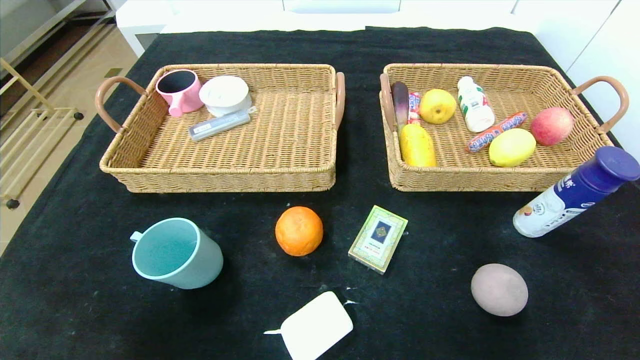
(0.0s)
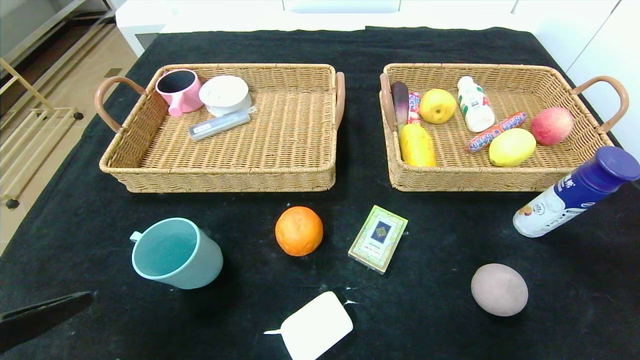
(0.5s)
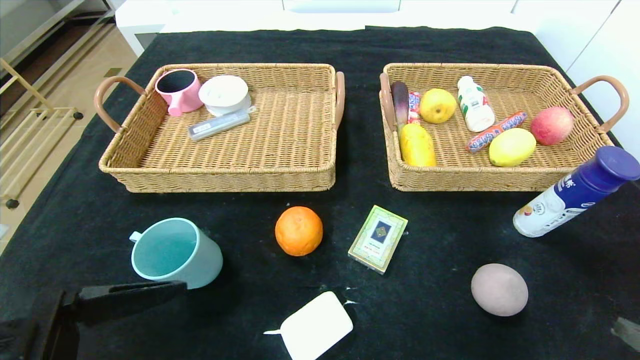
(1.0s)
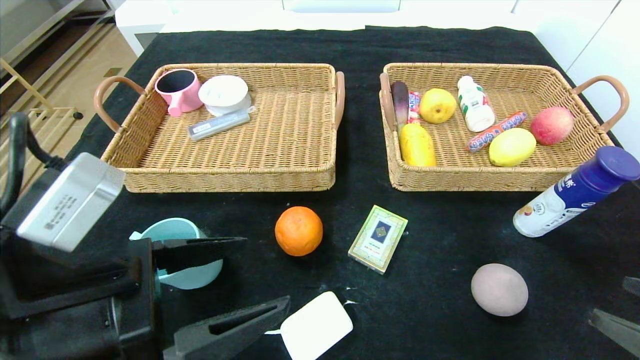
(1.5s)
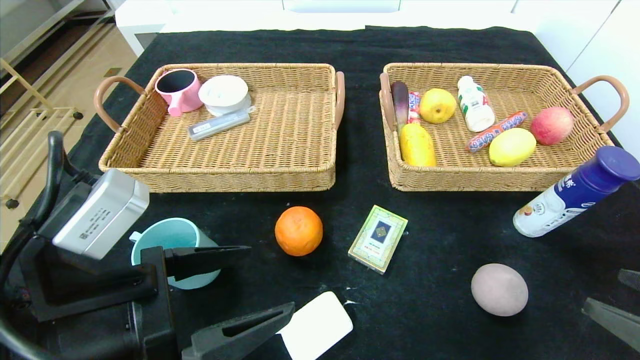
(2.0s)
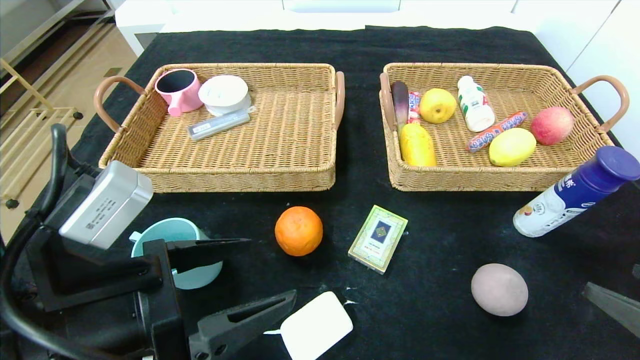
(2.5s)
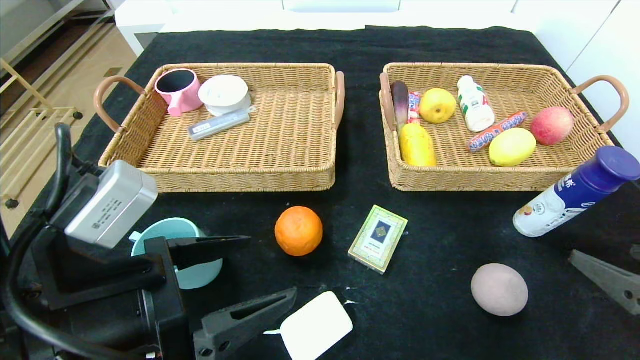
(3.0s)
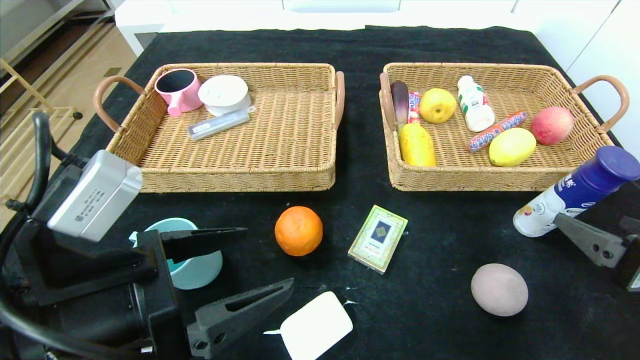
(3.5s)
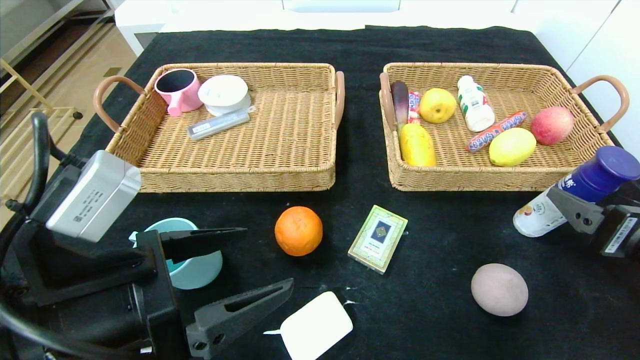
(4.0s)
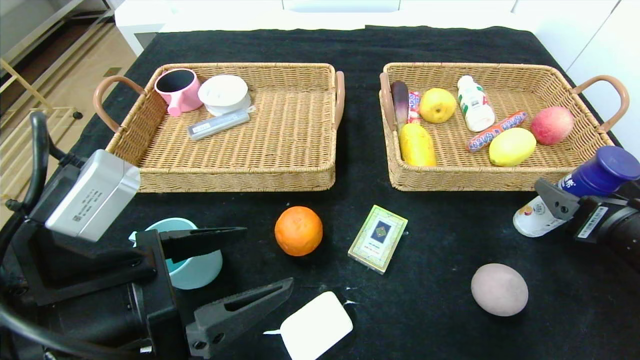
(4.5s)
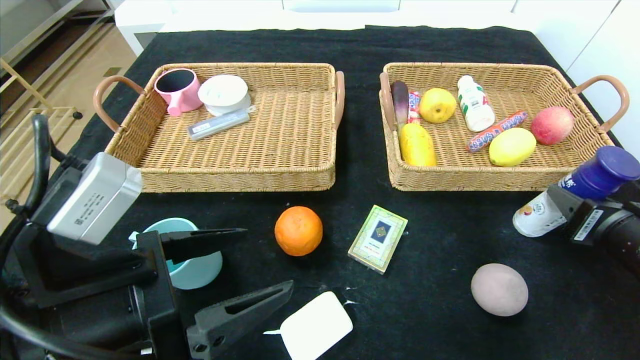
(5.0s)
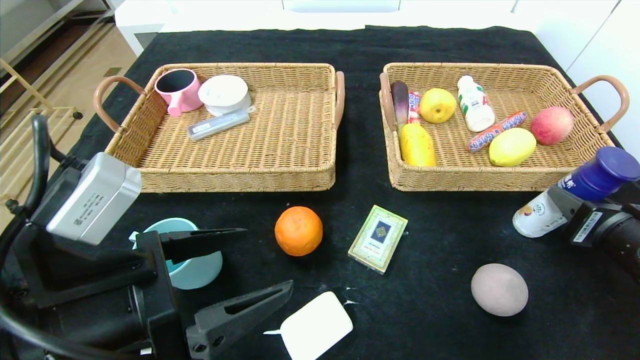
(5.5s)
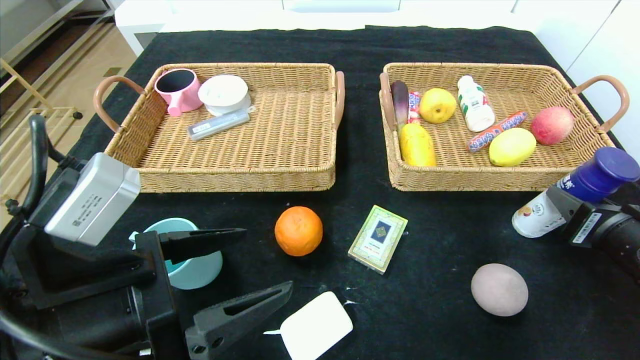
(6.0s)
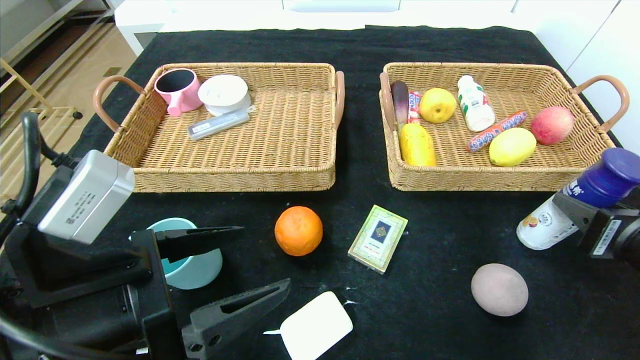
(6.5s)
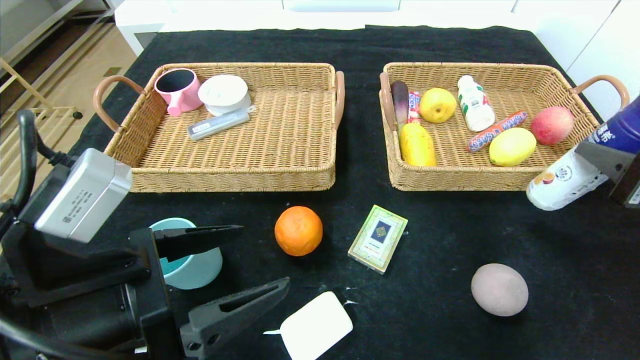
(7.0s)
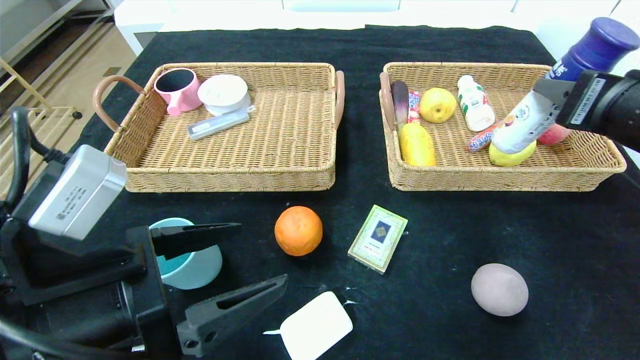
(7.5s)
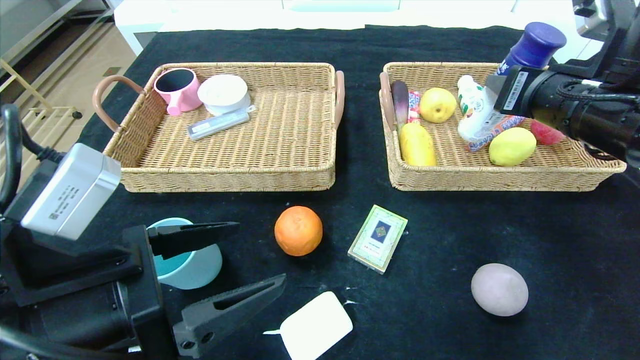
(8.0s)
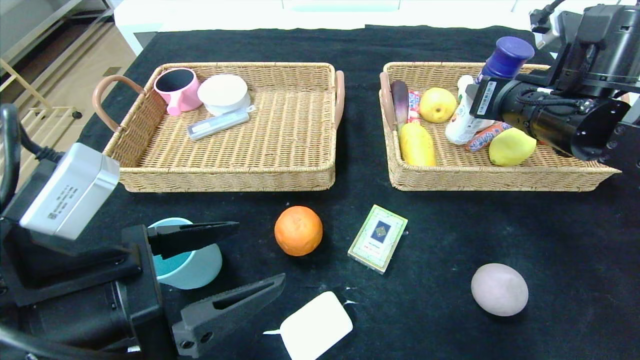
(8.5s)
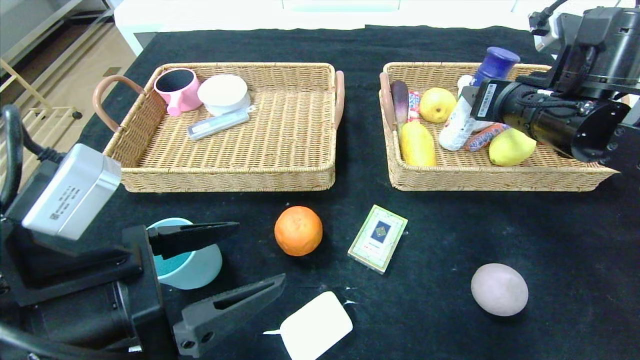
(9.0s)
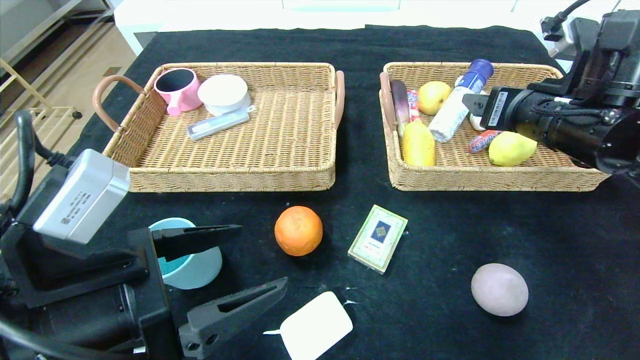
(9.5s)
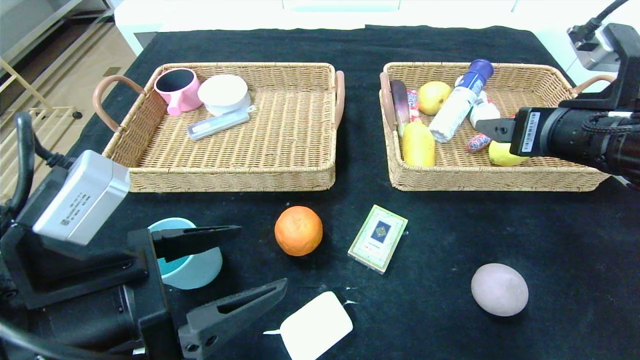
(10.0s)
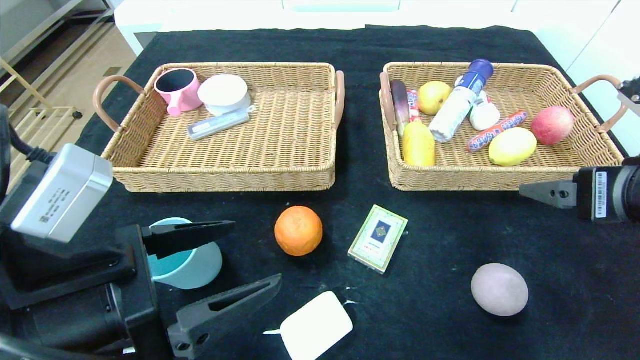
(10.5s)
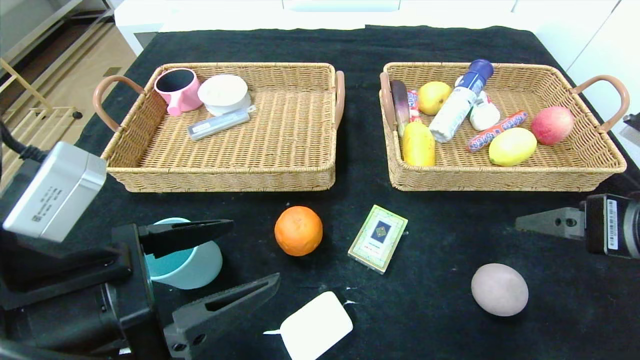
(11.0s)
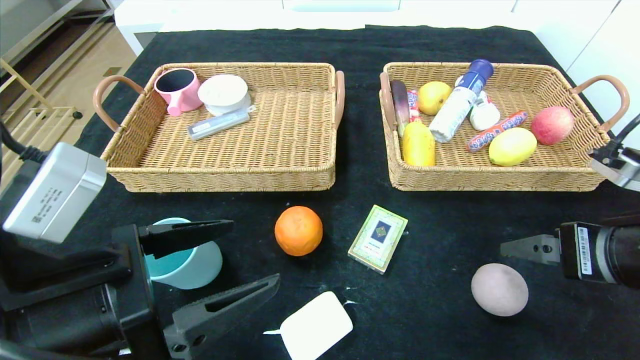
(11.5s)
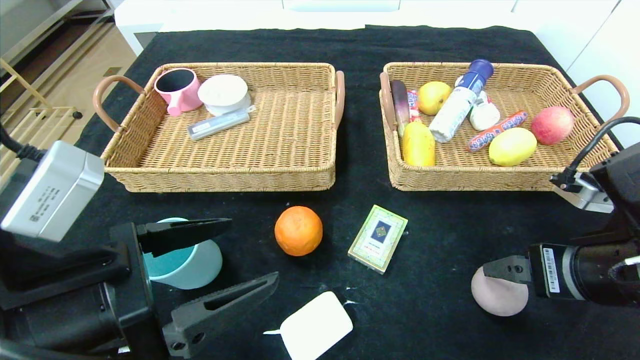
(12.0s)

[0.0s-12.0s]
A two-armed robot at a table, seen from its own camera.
Step, 0.0s to 9.0s: Grasp the yogurt and put it in the right basket.
0.0s to 2.0s: The right gripper heads forward, covering approximately 10 cm. The left gripper heads forward and to the right, covering roughly 15 cm.
2.0s to 4.0s: The right gripper heads forward, covering roughly 10 cm.
4.0s to 6.0s: The right gripper closes up.
6.0s to 8.0s: The right gripper moves upward, forward and to the left, approximately 15 cm.
8.0s to 10.0s: The right gripper opens.
10.0s to 12.0s: The right gripper heads downward and backward, covering approximately 10 cm.

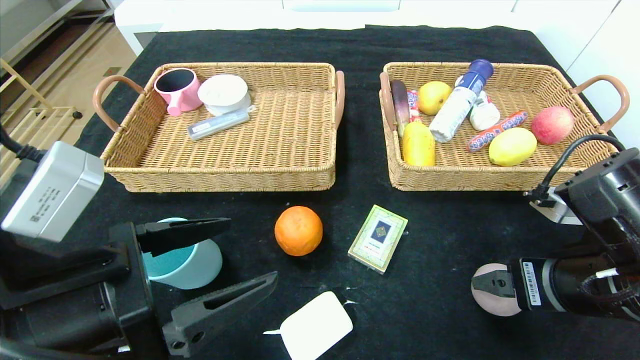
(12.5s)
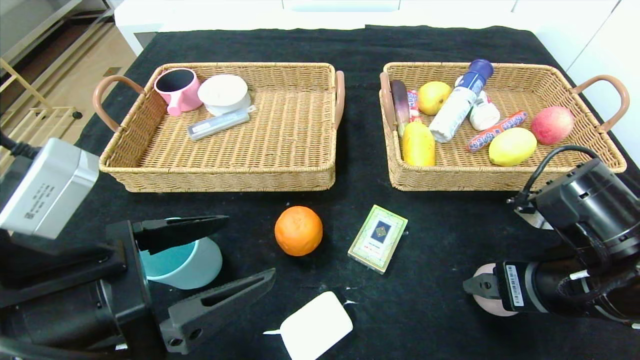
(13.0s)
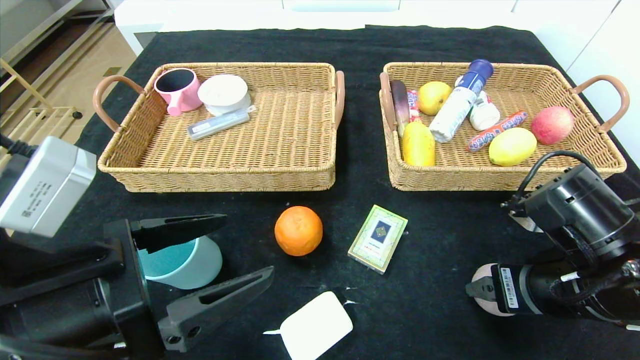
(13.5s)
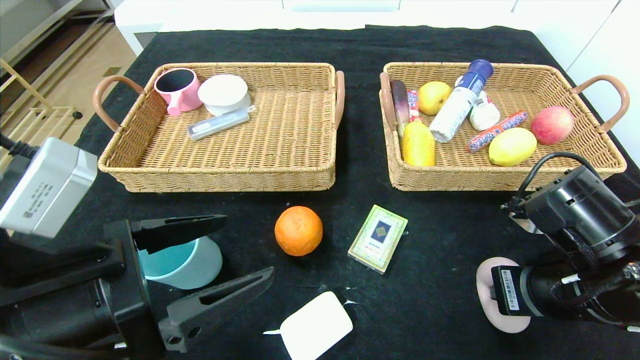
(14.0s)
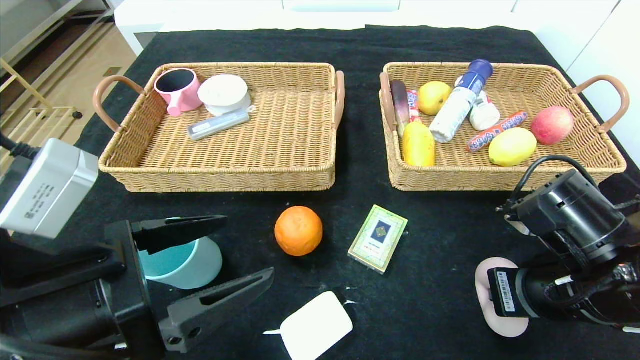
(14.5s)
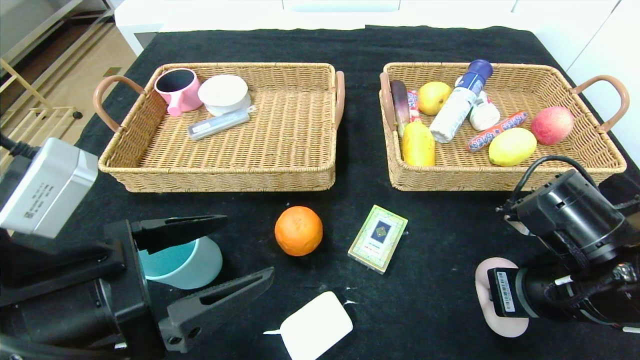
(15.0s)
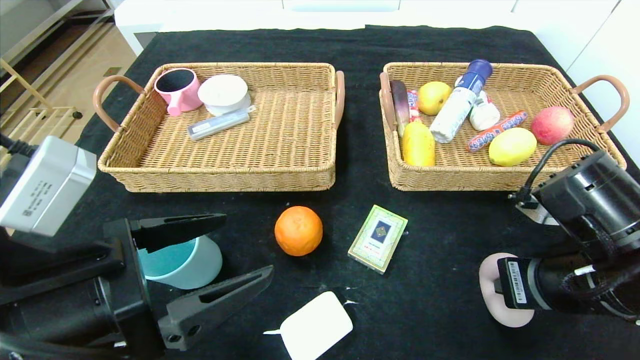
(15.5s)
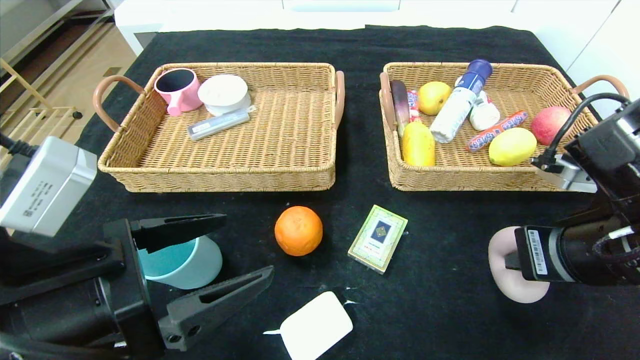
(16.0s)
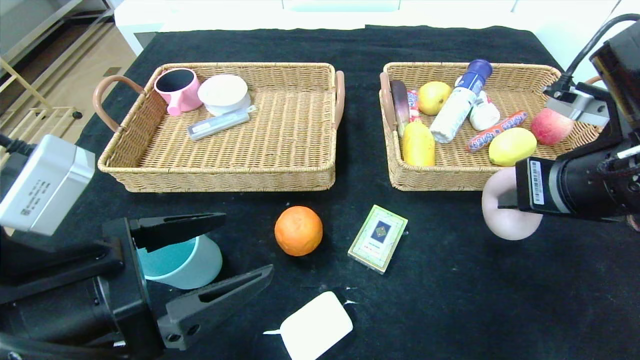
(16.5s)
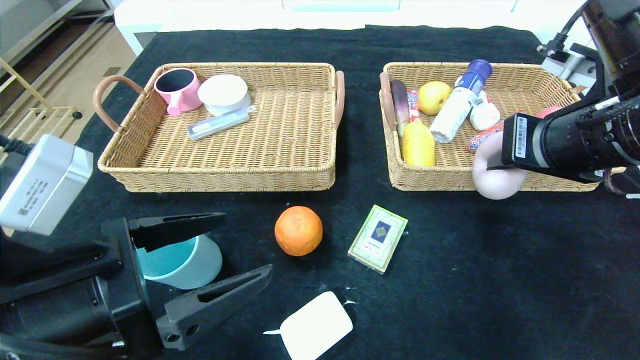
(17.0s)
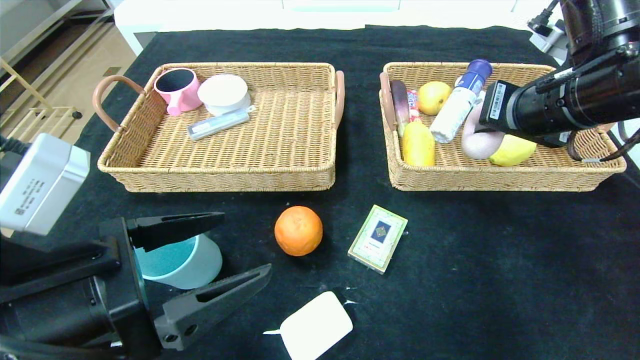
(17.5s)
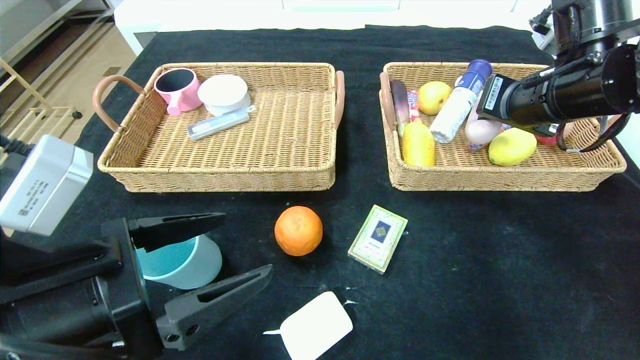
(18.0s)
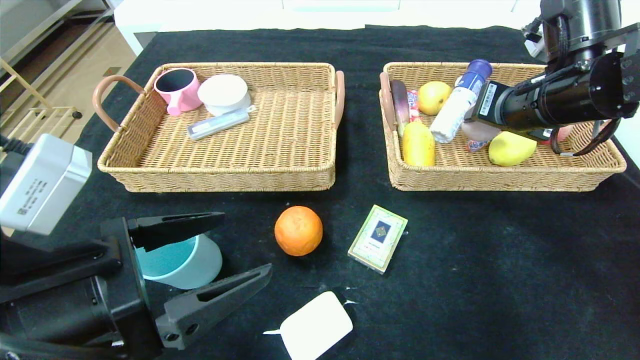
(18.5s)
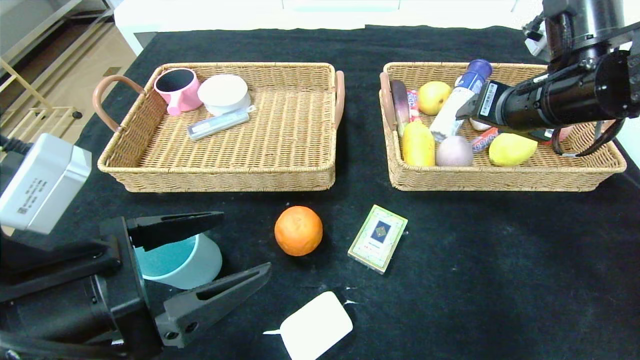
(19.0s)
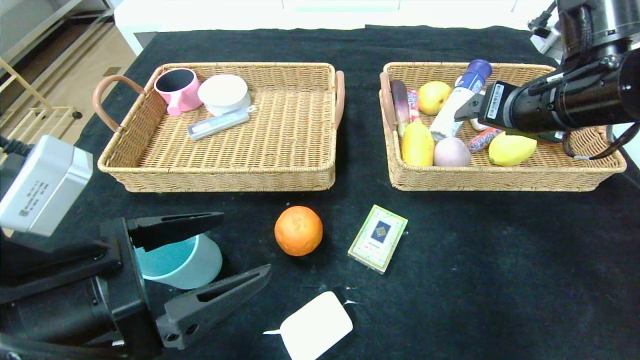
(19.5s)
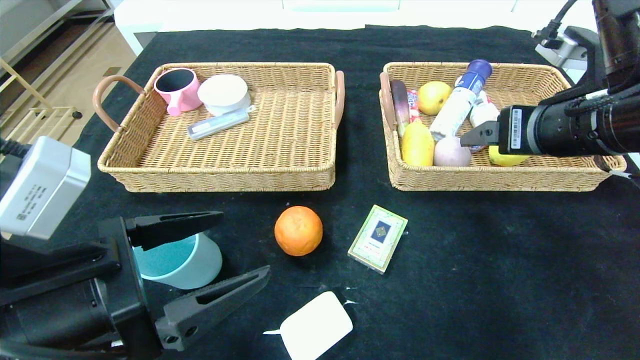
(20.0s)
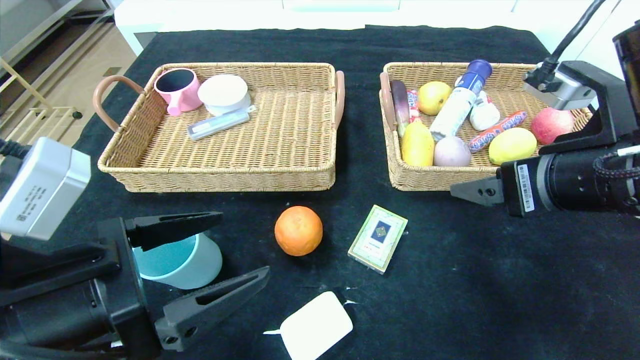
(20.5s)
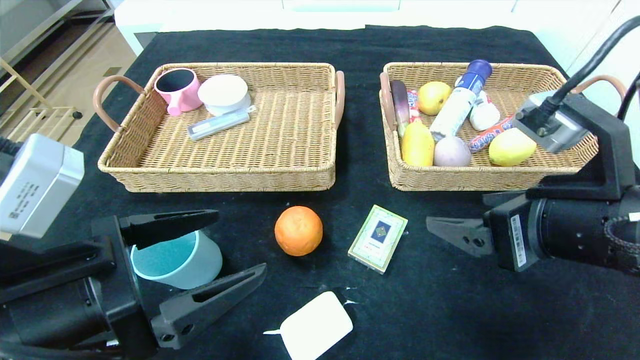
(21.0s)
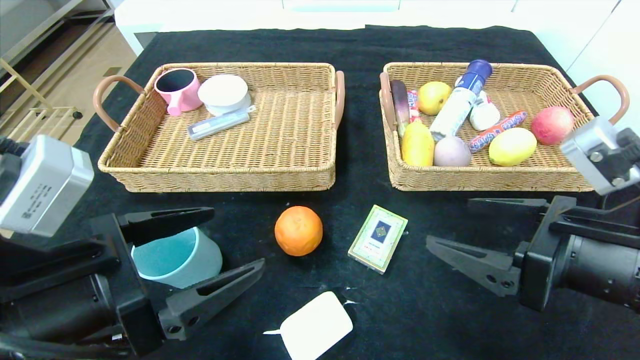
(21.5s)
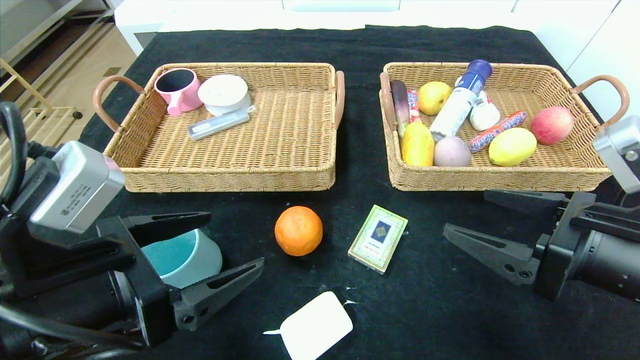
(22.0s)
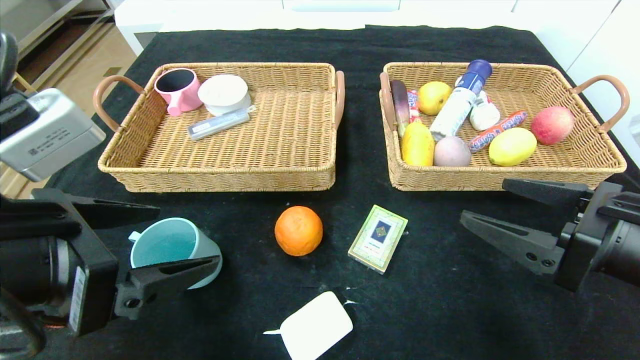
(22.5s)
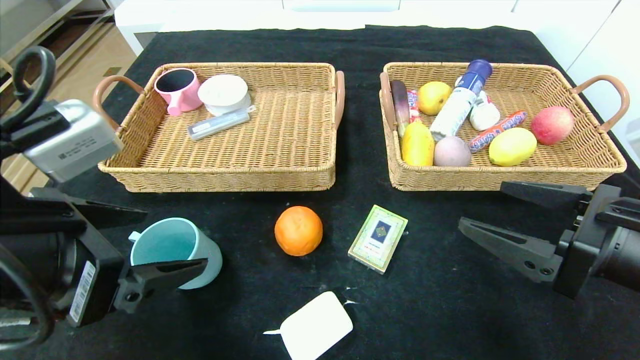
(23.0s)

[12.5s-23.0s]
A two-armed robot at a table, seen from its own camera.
Step, 12.5s to 19.0s: Grasp the peach and put it in the right basket.
12.5s to 14.5s: The right gripper closes its fingers.
14.5s to 16.5s: The right gripper heads upward, covering roughly 10 cm.
16.5s to 19.0s: The right gripper shifts roughly 10 cm forward, and opens.
19.0s to 21.0s: The right gripper goes approximately 15 cm backward.
21.0s to 23.0s: The right gripper travels to the right by approximately 5 cm. Meanwhile the left gripper moves upward, approximately 5 cm.
